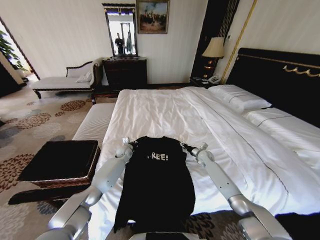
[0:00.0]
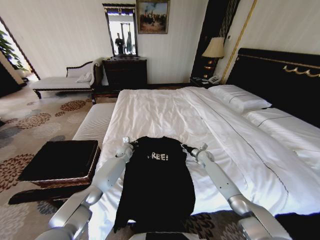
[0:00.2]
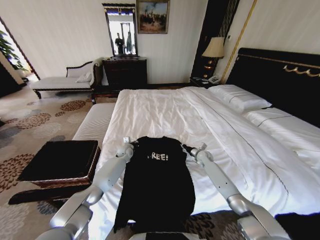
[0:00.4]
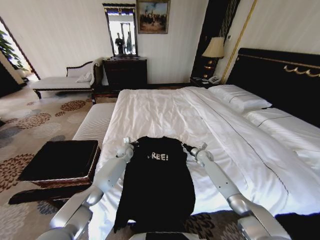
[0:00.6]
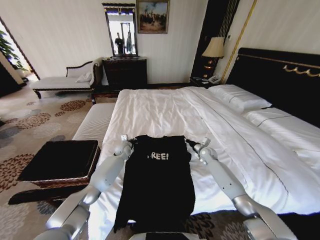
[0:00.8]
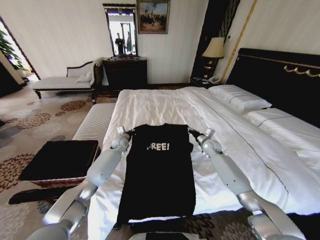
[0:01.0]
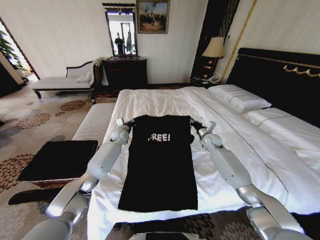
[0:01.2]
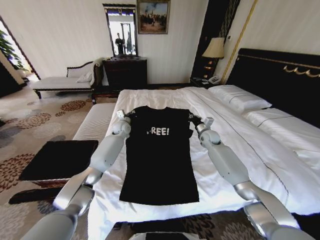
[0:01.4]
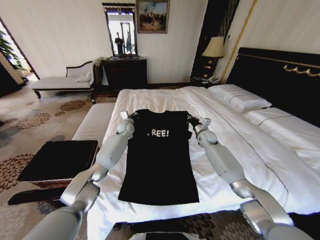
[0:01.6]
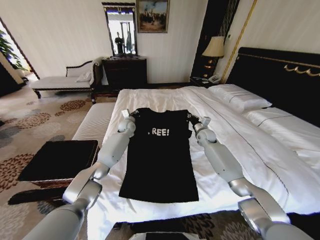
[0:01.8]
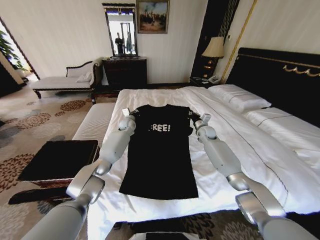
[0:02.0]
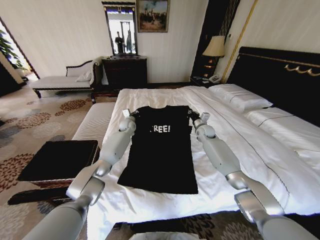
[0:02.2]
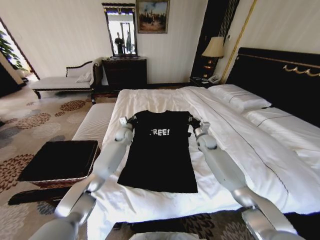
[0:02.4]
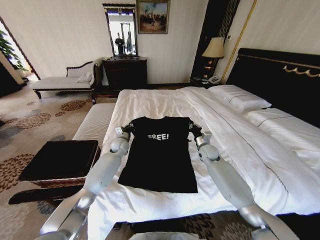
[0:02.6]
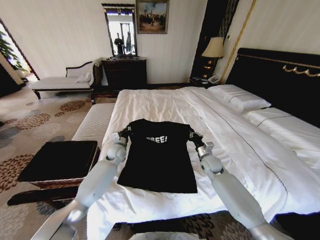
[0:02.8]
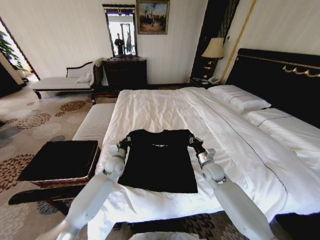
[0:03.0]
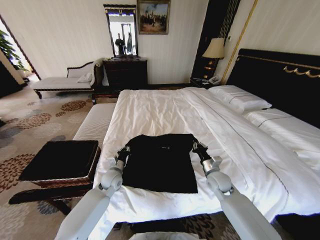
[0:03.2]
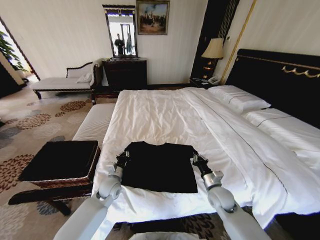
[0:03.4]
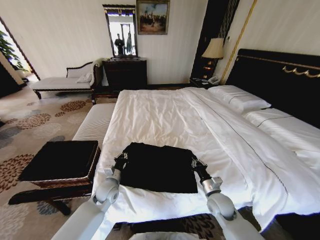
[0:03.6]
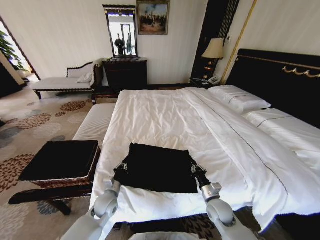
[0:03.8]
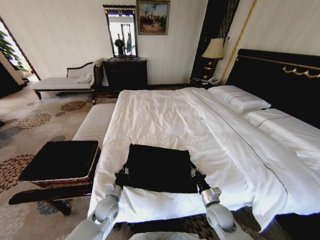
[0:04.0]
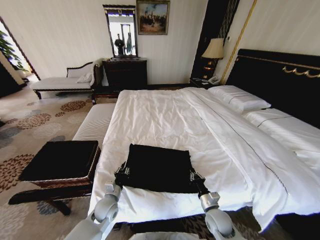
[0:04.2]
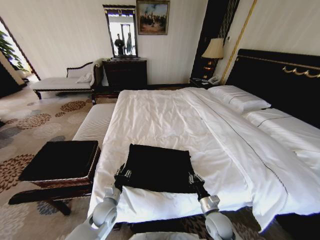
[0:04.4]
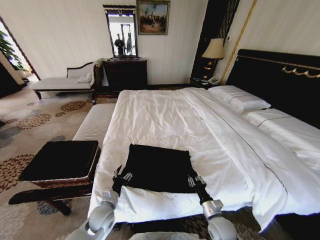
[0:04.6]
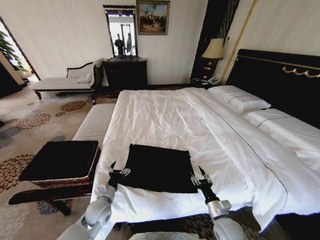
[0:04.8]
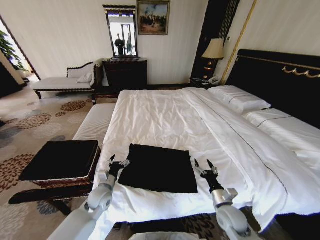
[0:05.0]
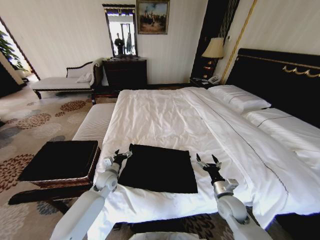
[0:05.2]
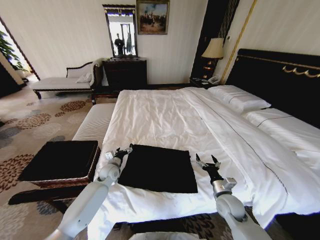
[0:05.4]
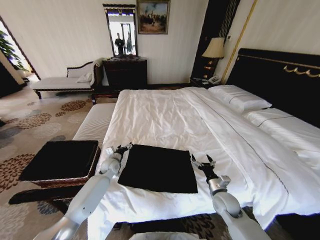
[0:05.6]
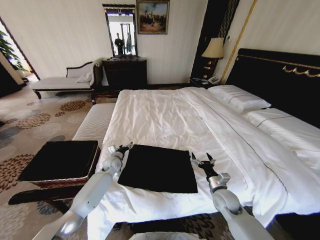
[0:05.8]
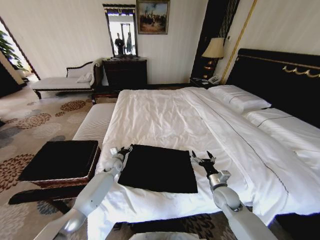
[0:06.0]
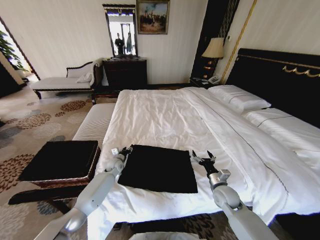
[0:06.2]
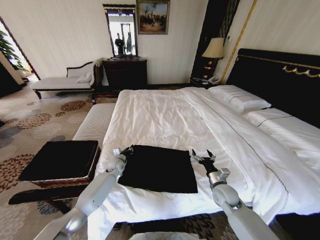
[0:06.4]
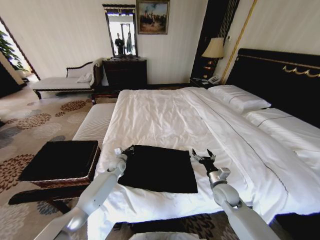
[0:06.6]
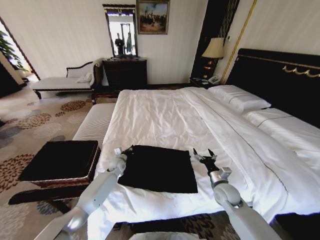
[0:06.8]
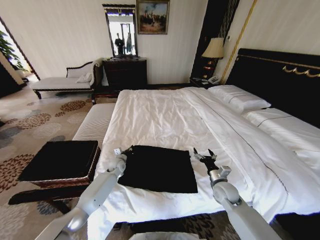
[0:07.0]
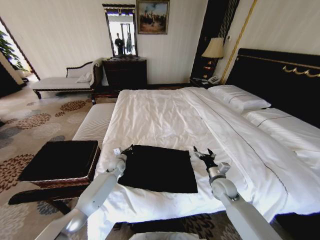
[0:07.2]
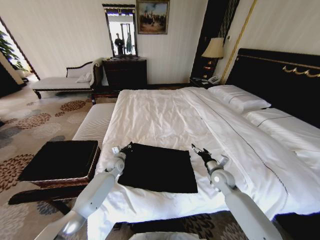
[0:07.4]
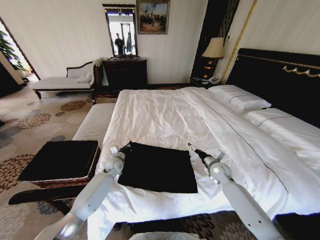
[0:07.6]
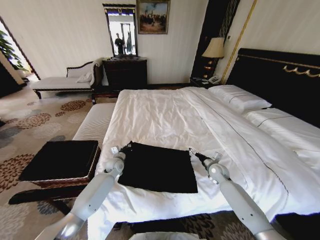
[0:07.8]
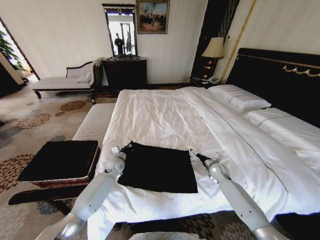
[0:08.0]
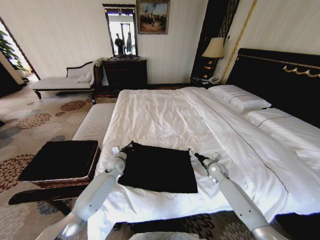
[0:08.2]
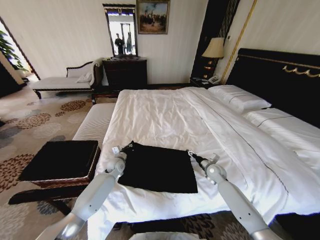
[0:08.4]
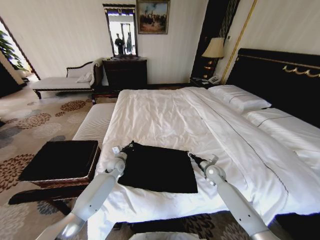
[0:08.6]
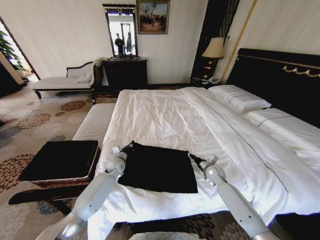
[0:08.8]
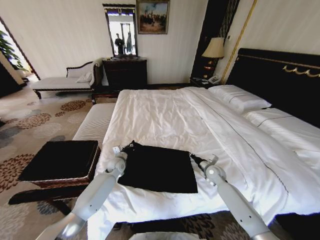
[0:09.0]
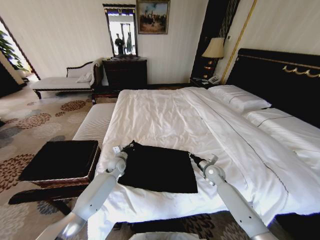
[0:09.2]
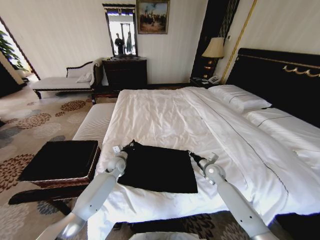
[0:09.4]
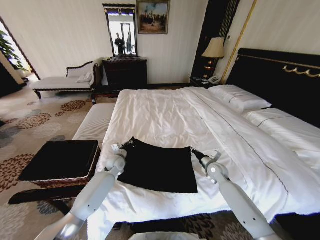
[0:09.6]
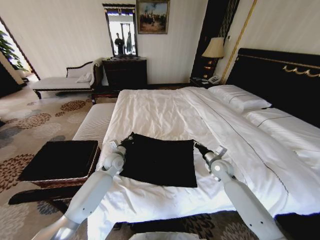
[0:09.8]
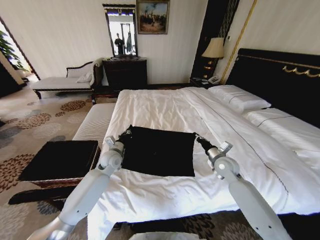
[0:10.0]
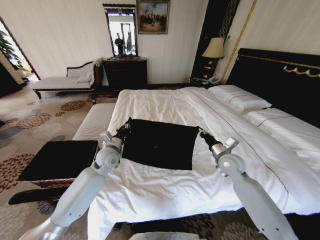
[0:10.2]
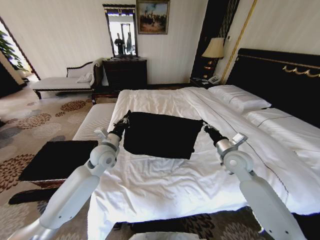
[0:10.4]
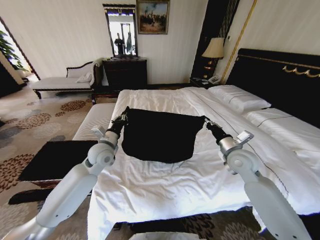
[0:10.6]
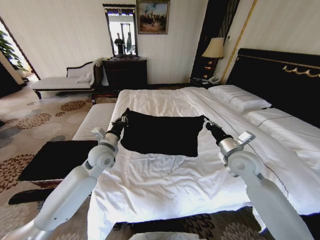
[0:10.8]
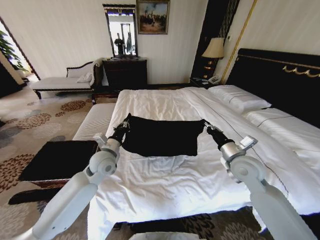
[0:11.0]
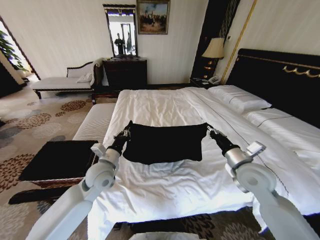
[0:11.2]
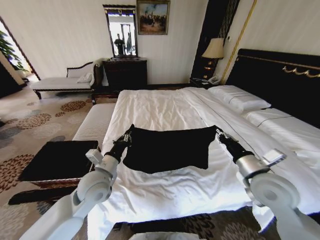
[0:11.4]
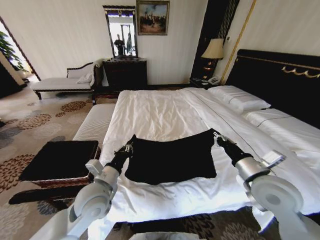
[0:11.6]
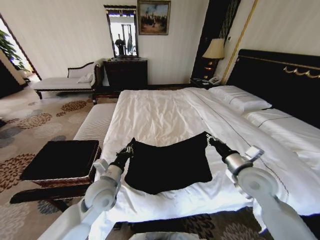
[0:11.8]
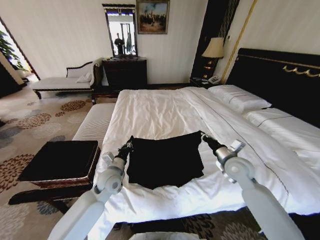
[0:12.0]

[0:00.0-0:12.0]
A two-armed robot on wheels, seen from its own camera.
Task of the whole recording: Fold the clothes on the bed and place them into the basket.
0:00.0 to 0:01.6: The right gripper goes some 15 cm upward, and closes its fingers; the left gripper moves upward and forward, approximately 15 cm.
0:01.6 to 0:03.0: The left gripper heads backward and downward, covering some 20 cm, while the right gripper travels backward by approximately 20 cm.
0:03.0 to 0:04.4: The right gripper moves backward and downward, some 20 cm, while the left gripper moves backward, some 20 cm, and opens its fingers.
0:04.4 to 0:06.0: The right gripper moves forward, upward and to the right, some 10 cm, and opens its fingers. Meanwhile the left gripper shifts approximately 25 cm forward.
0:06.0 to 0:07.6: The right gripper moves forward, about 10 cm. The left gripper closes up.
0:07.6 to 0:09.0: The right gripper closes its fingers.
0:09.0 to 0:10.4: Both grippers move upward, roughly 20 cm.
0:10.4 to 0:12.0: The right gripper moves roughly 15 cm backward and comes back. The left gripper heads downward and backward, covering some 10 cm.

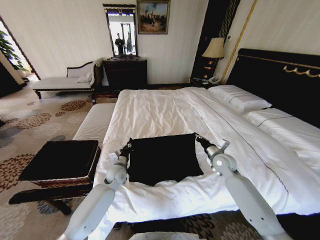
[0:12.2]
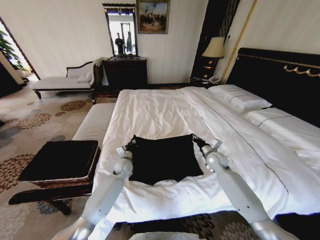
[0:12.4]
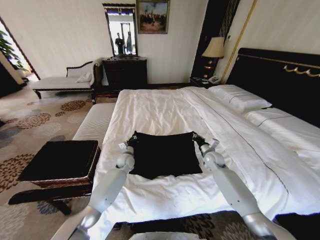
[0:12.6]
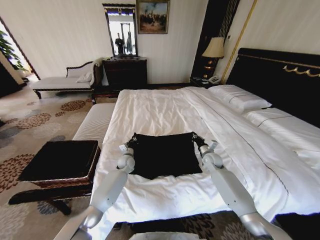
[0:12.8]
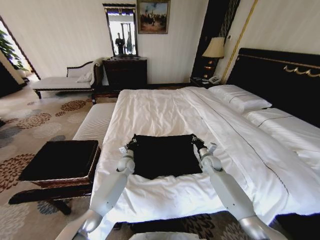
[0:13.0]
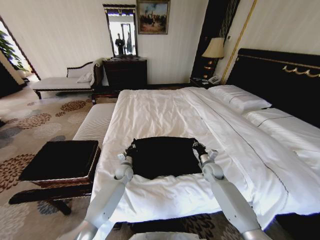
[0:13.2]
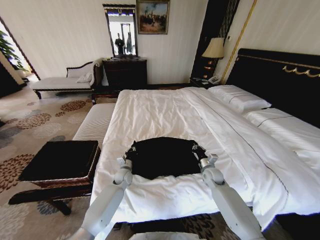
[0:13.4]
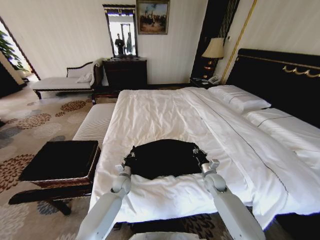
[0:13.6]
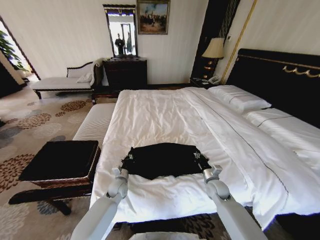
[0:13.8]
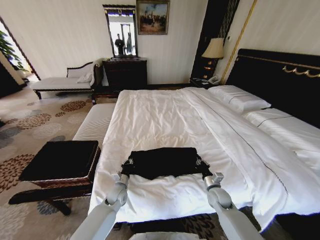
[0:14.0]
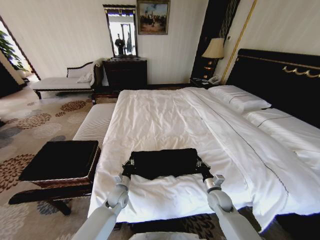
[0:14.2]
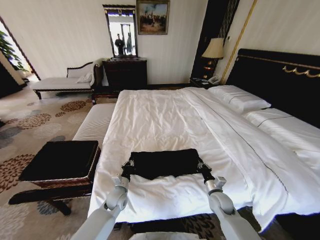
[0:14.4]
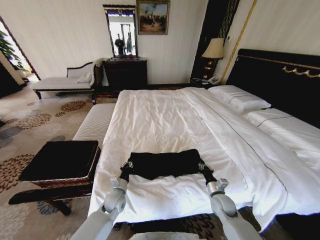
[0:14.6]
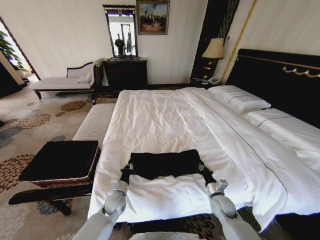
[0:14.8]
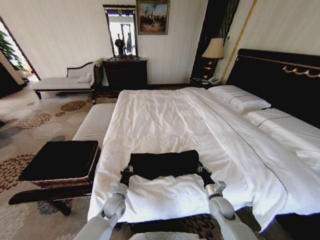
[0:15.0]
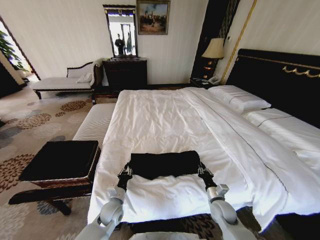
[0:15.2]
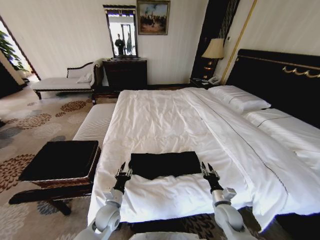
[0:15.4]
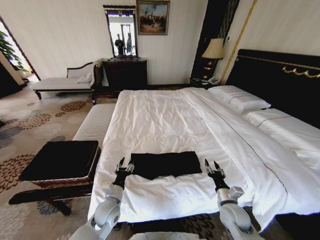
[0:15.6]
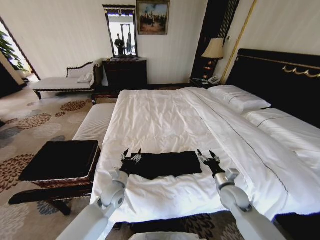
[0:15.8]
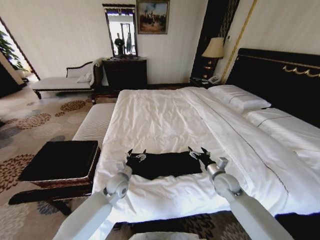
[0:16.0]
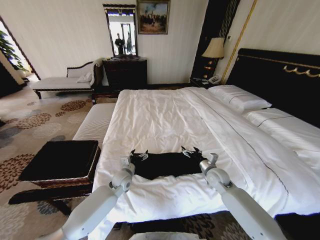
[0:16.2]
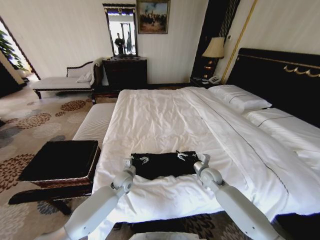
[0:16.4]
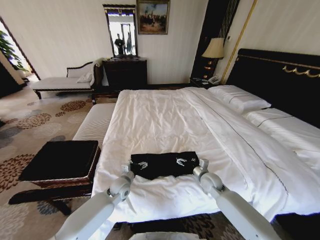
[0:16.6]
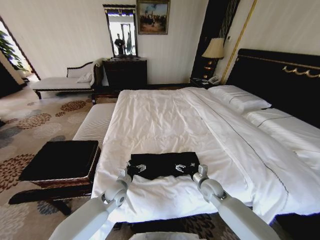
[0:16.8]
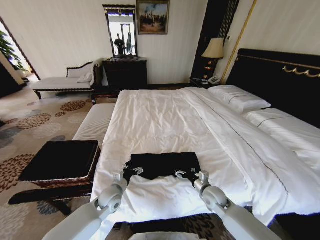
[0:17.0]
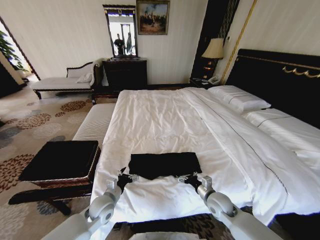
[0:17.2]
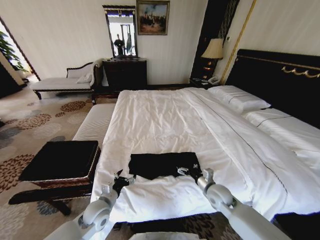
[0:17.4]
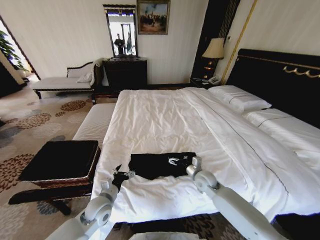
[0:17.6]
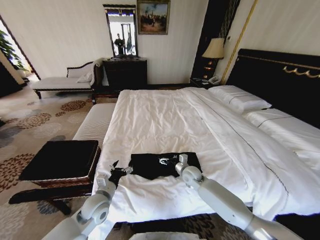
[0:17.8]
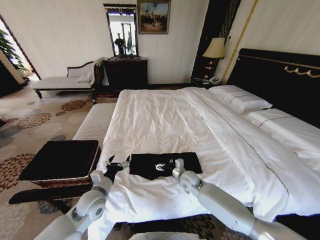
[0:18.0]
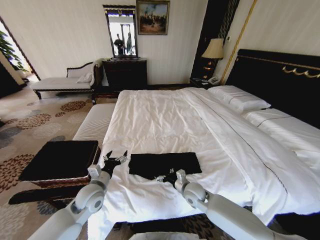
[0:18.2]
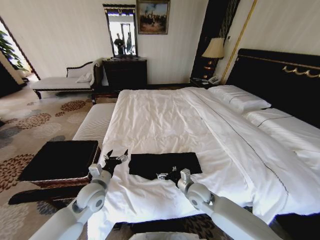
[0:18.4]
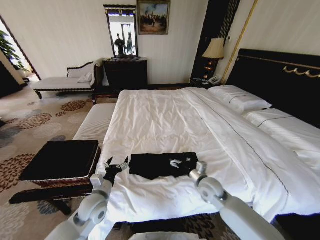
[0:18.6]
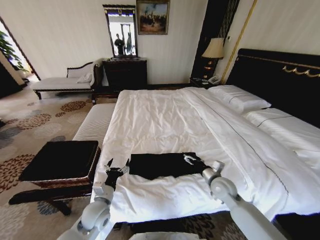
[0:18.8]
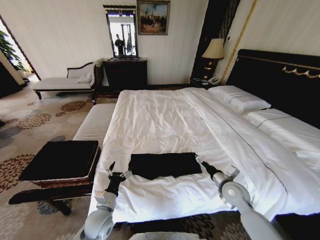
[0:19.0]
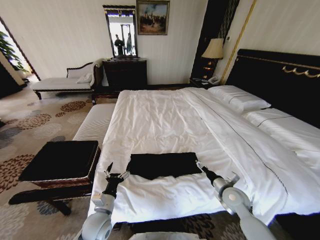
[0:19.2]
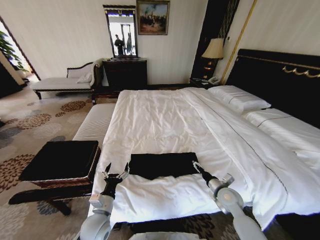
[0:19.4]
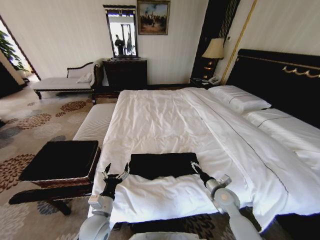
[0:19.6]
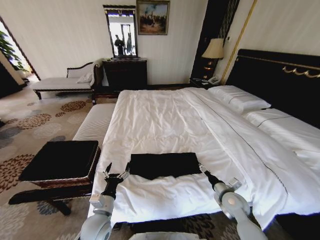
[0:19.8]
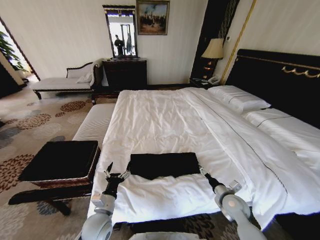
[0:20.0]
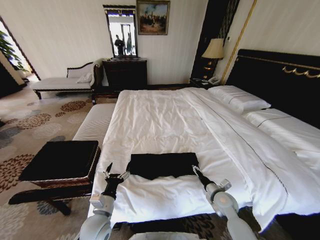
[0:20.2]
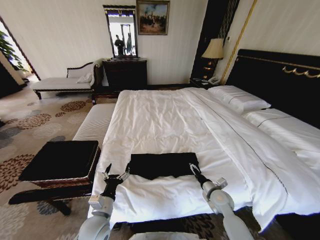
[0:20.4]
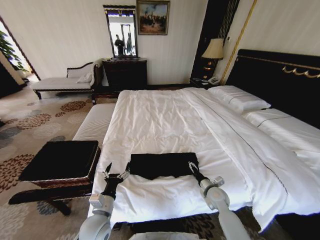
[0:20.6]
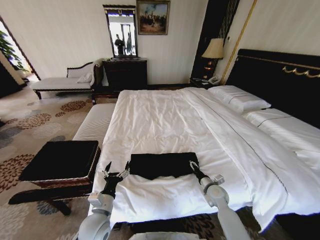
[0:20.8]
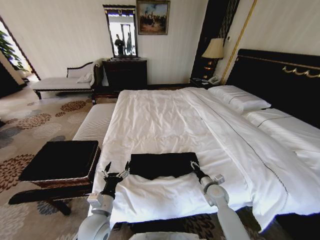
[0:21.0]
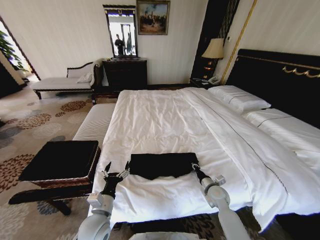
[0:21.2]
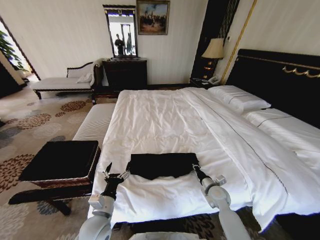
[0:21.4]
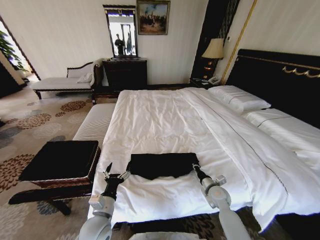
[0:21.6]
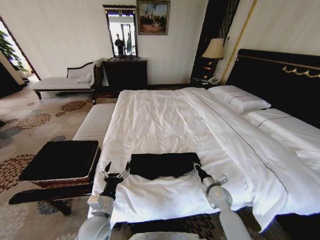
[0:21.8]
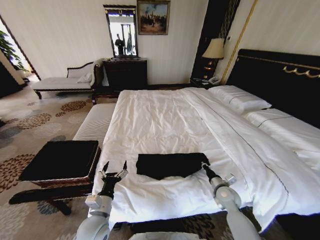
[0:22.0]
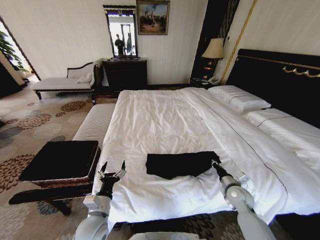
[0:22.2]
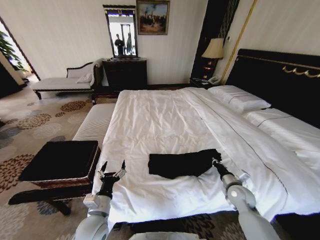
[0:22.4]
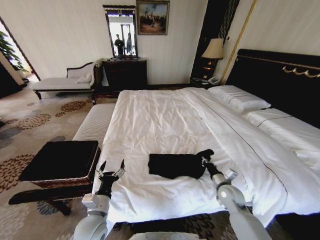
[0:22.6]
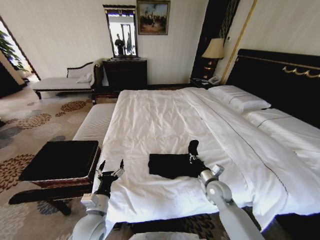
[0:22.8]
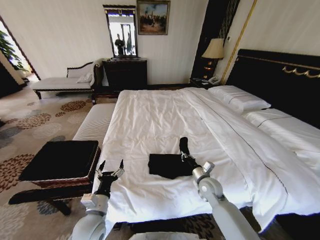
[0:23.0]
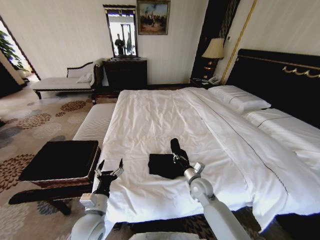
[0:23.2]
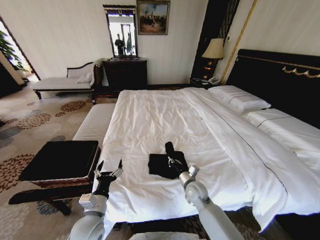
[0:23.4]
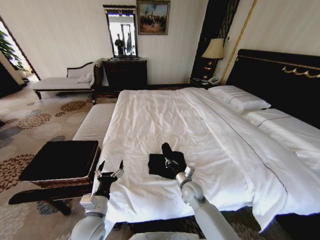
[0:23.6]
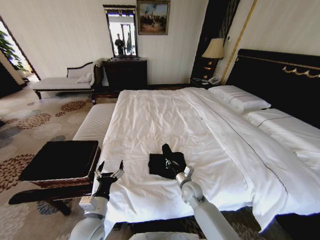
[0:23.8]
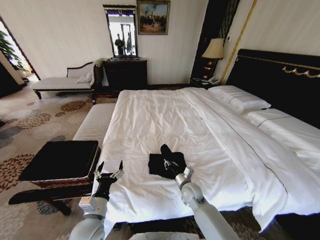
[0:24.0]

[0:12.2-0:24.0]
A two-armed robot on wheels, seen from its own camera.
Task of the whole recording: Fold the clothes on the bed and place them into the basket.
0:12.2 to 0:13.6: Both grippers move downward, roughly 10 cm. The left gripper goes forward and returns, approximately 10 cm each way.
0:13.6 to 0:15.2: Both grippers travel together backward, approximately 10 cm.
0:15.2 to 0:16.6: The left gripper is displaced forward by approximately 10 cm, and opens up, while the right gripper moves forward and upward, approximately 10 cm, and opens its fingers.
0:16.6 to 0:18.2: The left gripper is displaced upward, to the left and backward by approximately 15 cm; the right gripper swings forward and backward, approximately 15 cm each way, with 2 reversals.
0:18.2 to 0:19.6: The left gripper is displaced backward and downward by approximately 10 cm, while the right gripper shifts some 15 cm to the right.
0:19.6 to 0:21.0: The right gripper moves roughly 5 cm, and closes.
0:21.0 to 0:22.6: The right gripper is displaced upward by some 5 cm, and closes its fingers.
0:22.6 to 0:24.0: The right gripper heads to the left, covering roughly 15 cm.
